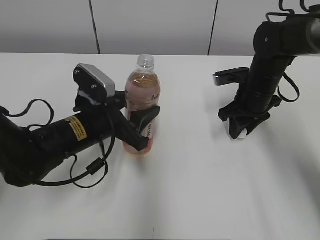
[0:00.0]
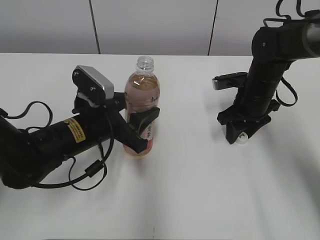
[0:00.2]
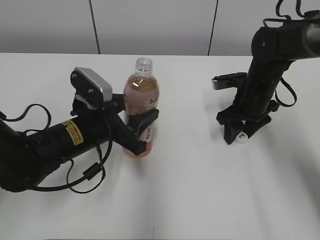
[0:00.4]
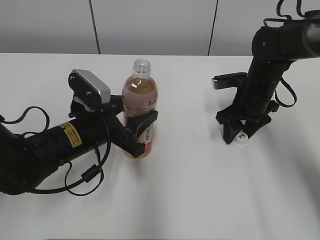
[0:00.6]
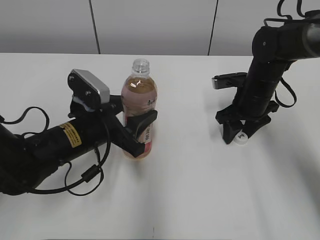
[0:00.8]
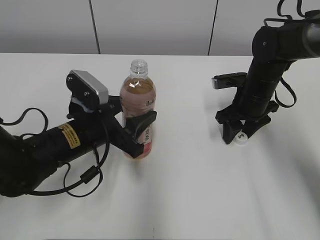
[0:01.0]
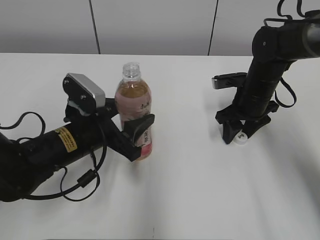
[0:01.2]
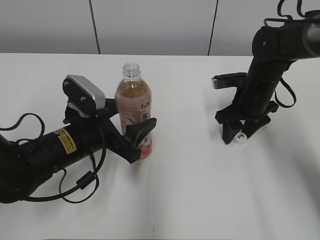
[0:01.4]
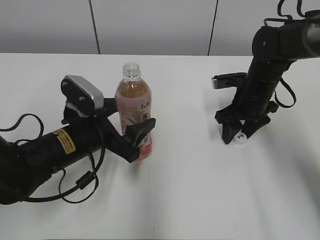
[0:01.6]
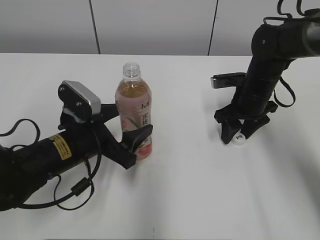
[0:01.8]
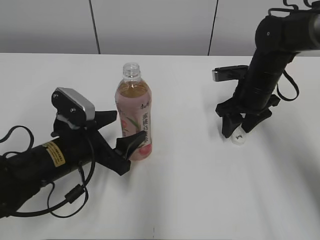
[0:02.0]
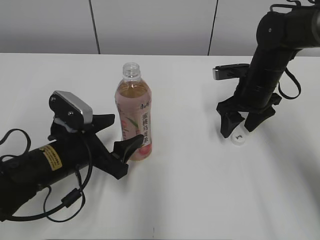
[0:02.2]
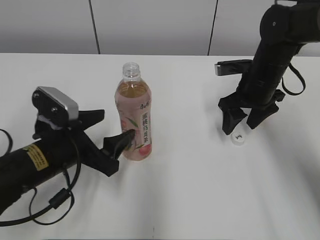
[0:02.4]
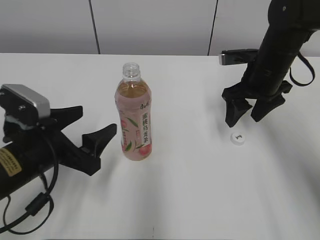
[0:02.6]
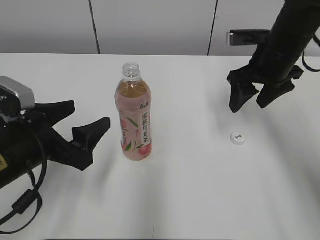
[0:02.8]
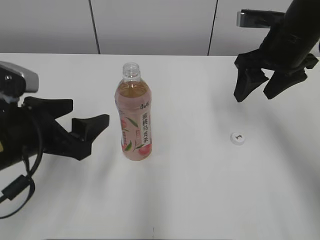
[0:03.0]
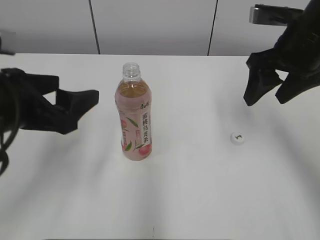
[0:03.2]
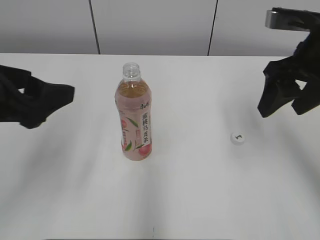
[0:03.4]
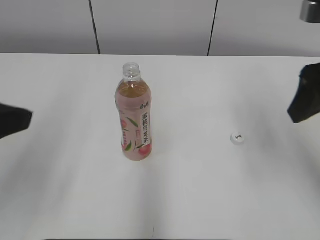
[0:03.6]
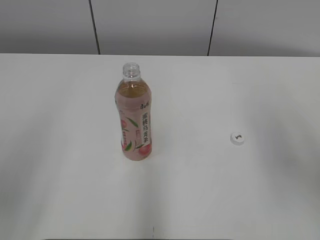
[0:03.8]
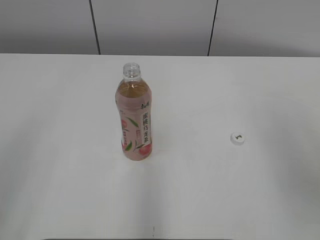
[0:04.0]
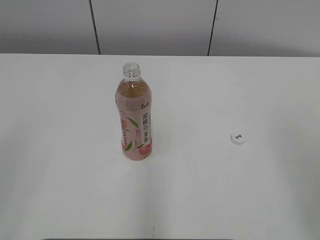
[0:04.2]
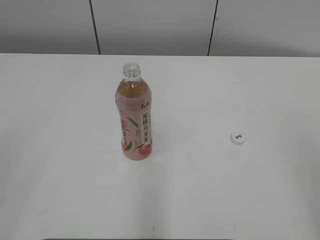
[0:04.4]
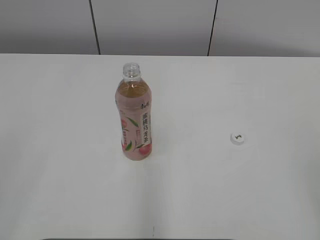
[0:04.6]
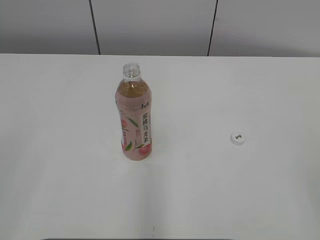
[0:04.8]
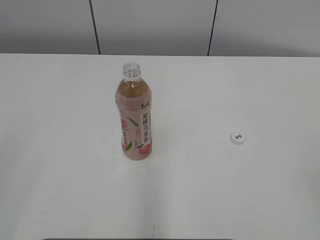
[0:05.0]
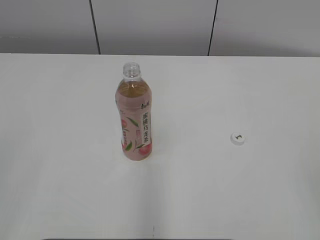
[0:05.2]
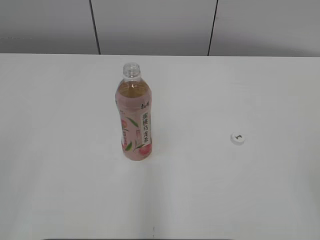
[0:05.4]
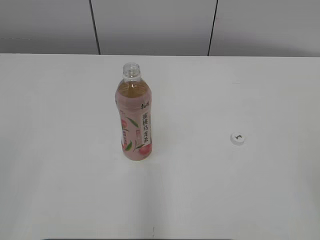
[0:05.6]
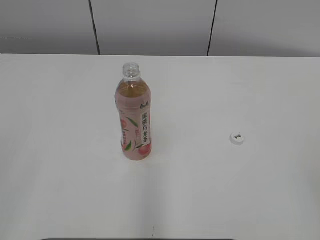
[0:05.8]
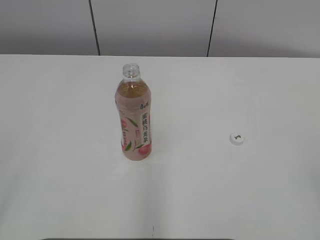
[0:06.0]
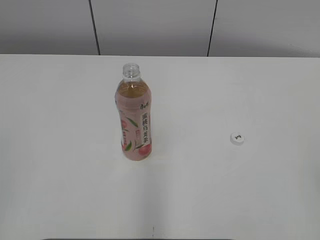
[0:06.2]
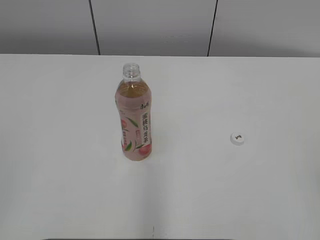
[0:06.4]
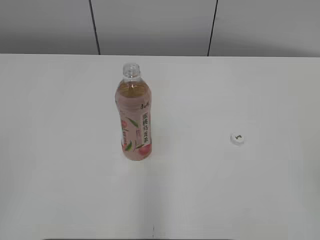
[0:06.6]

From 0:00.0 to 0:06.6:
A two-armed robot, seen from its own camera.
Step, from 0:00.4 to 0:01.6: Place the Peach Oolong Tea with the left hand.
From 0:00.0 to 0:01.6: The left gripper opens. Meanwhile the right gripper opens up.
From 0:01.6 to 0:03.2: The right gripper shifts approximately 15 cm upward, while the left gripper goes roughly 15 cm upward, backward and to the left.
From 0:03.2 to 0:05.0: The left gripper is displaced backward, to the left and upward by about 25 cm, and closes. The right gripper is displaced backward by roughly 35 cm, and closes.

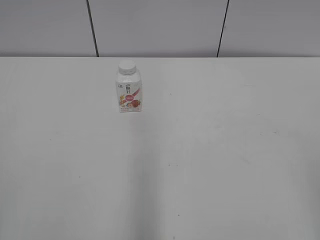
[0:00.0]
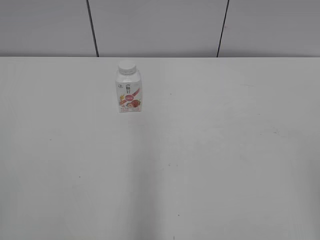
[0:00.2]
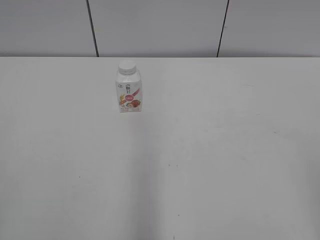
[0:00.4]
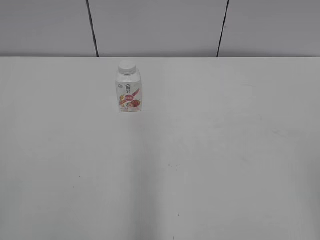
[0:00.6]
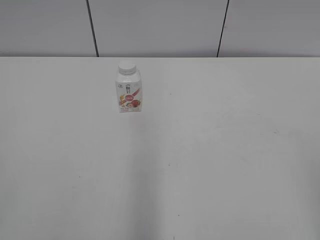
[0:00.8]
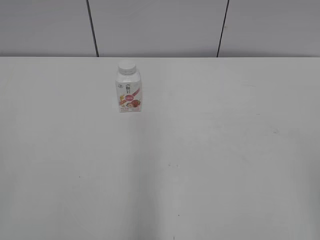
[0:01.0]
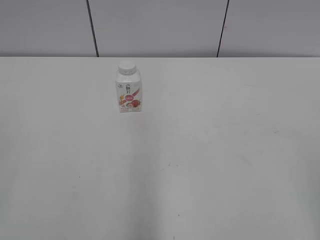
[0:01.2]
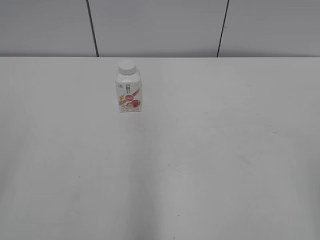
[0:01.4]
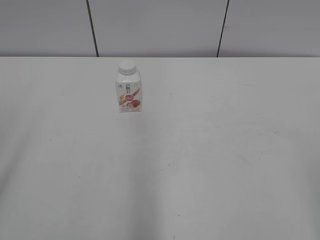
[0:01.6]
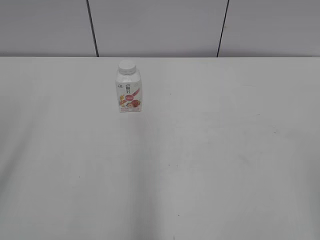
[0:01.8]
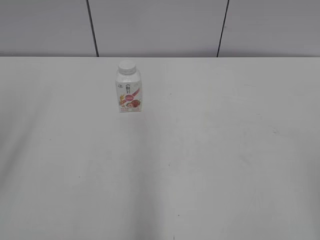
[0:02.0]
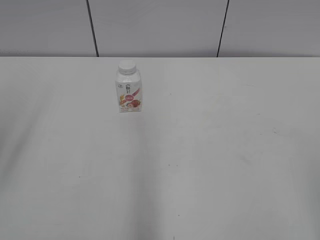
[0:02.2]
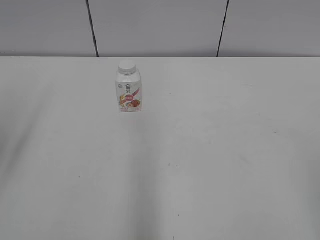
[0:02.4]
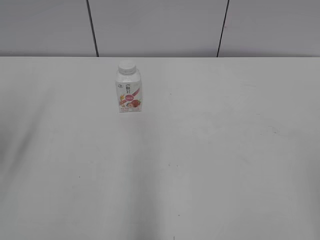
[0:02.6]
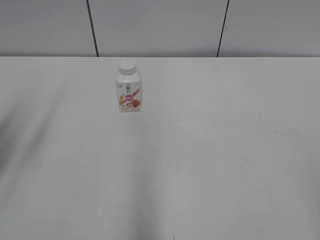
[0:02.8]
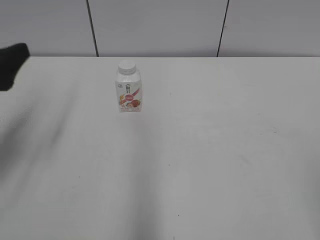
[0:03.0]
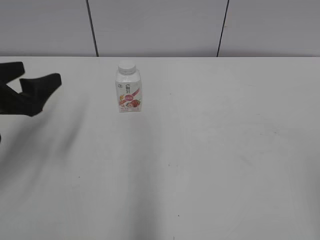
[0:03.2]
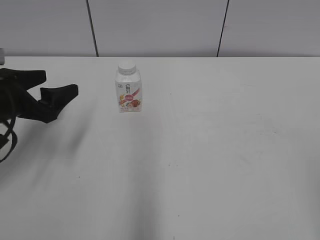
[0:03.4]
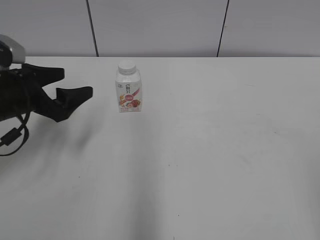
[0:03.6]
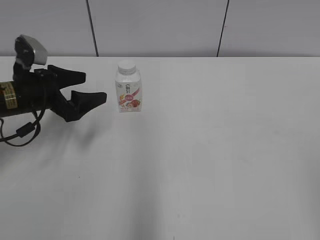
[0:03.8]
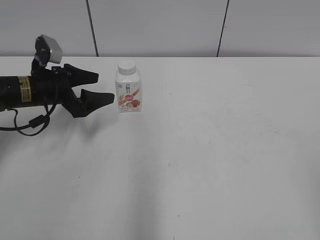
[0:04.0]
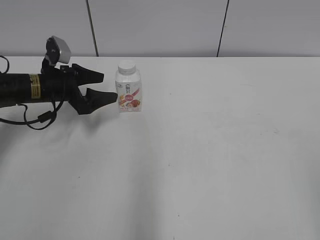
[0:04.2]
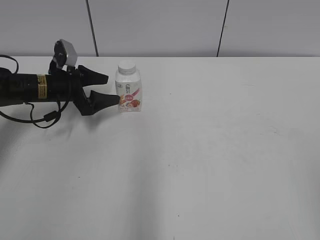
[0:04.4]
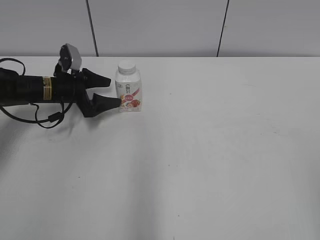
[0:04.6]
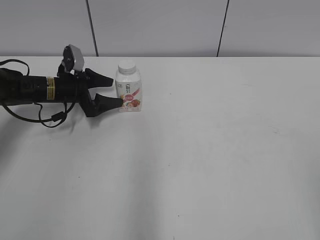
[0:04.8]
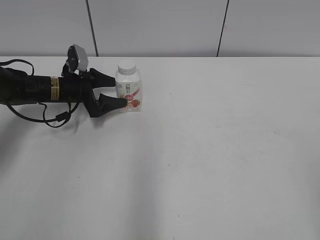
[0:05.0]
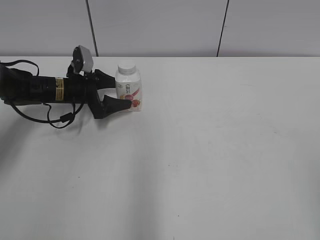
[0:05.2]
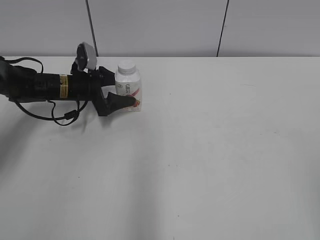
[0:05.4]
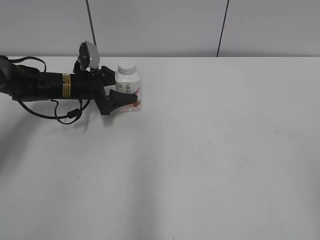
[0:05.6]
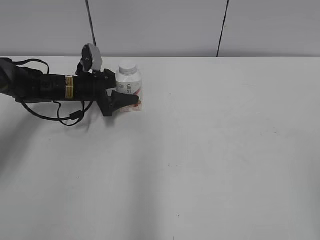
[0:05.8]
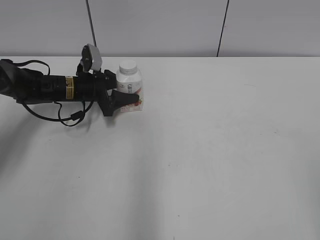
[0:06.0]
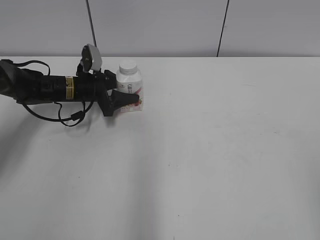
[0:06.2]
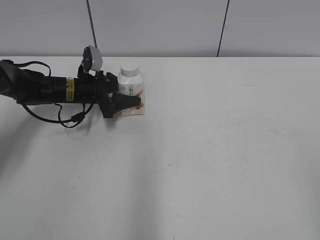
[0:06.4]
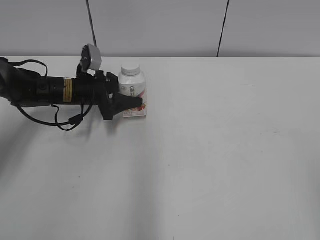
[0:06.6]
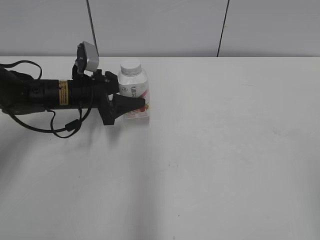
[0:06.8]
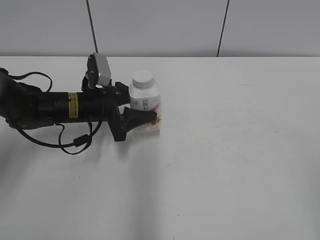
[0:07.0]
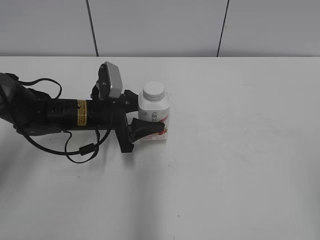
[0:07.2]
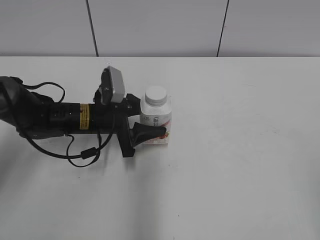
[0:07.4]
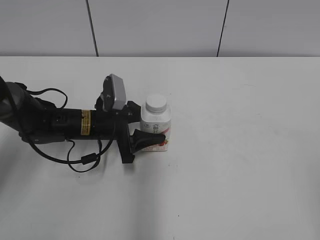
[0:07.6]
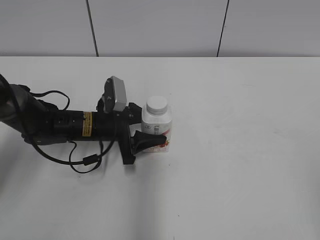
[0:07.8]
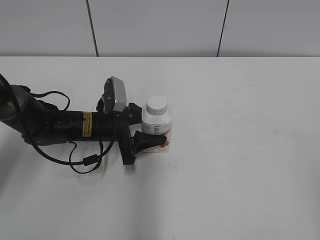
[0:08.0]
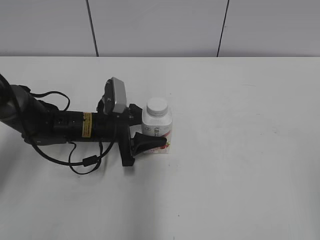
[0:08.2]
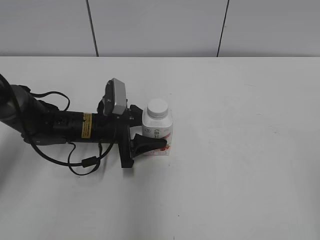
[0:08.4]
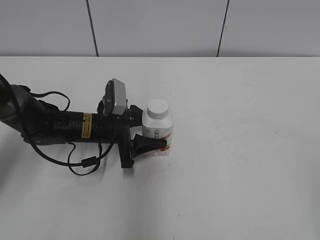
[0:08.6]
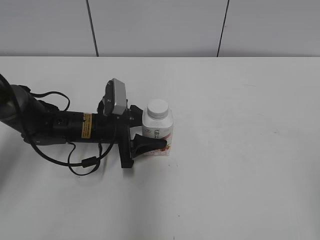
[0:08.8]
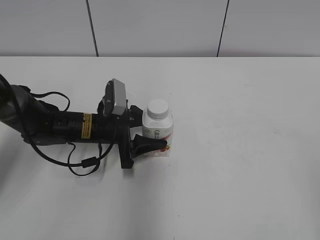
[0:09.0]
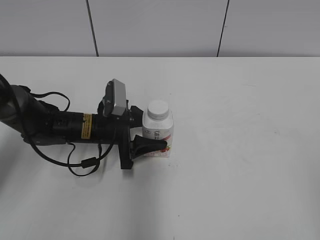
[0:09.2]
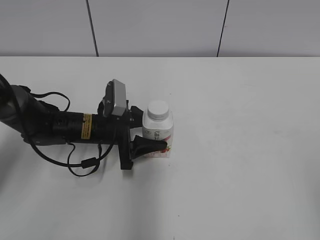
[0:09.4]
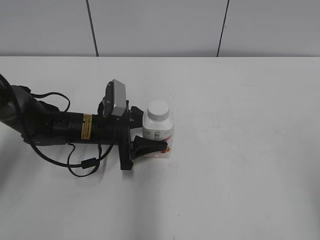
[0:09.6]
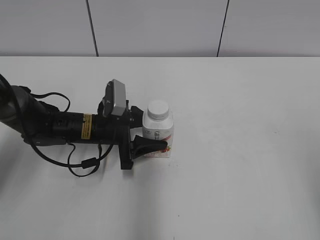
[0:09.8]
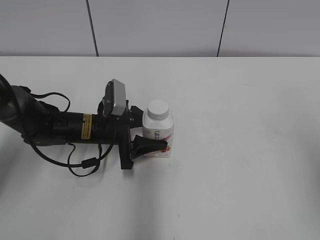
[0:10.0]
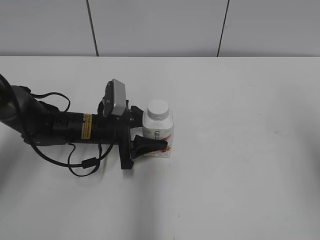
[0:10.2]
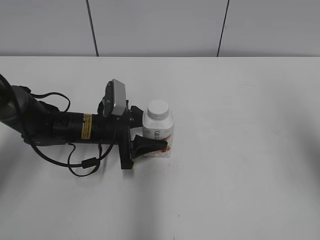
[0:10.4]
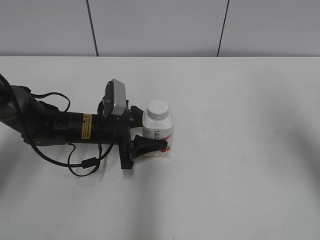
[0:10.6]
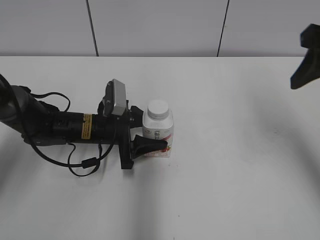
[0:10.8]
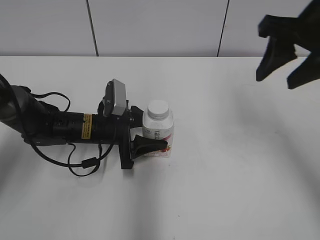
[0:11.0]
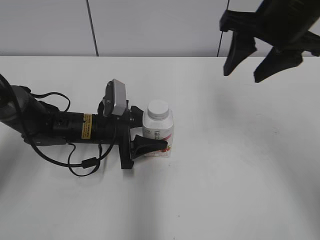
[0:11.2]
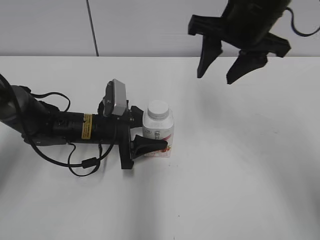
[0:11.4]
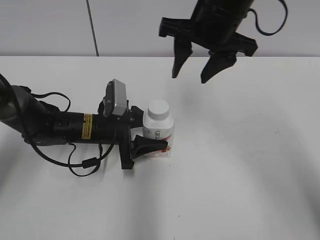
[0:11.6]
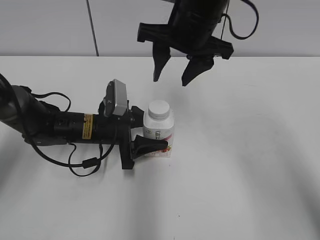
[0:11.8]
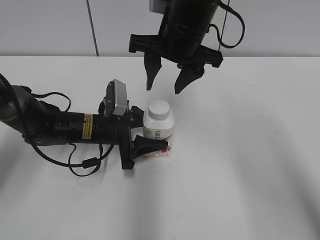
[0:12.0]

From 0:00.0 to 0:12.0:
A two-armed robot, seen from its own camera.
Step, from 0:00.0 to 0:06.0: Grab the Yili Changqing with the left hand.
Step, from 0:06.2 to 0:10.4: Move the Yili Changqing from left to right.
From 0:01.6 to 0:03.0: The left gripper is displaced forward and downward by about 20 cm.
From 0:03.0 to 0:04.4: The left gripper is displaced forward and downward by roughly 25 cm.
From 0:04.4 to 0:06.0: The left gripper ends up about 5 cm from where it was, and closes.
From 0:06.0 to 0:07.6: The left gripper goes approximately 15 cm backward and to the right.
From 0:07.6 to 0:09.0: Neither gripper changes place.
From 0:09.0 to 0:10.4: The right gripper shifts some 20 cm forward.
From 0:10.4 to 0:12.0: The right gripper heads to the left and forward, covering roughly 30 cm.

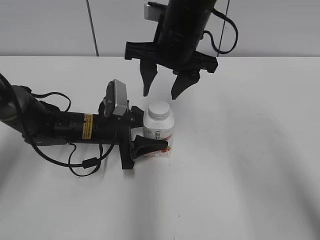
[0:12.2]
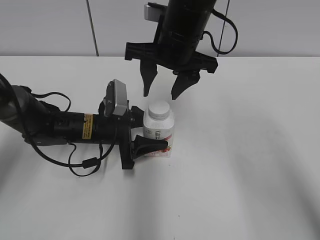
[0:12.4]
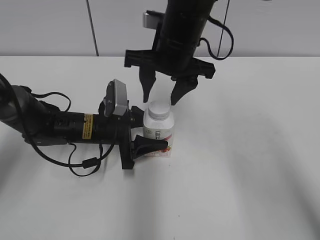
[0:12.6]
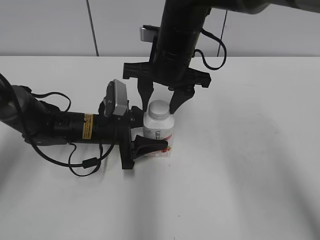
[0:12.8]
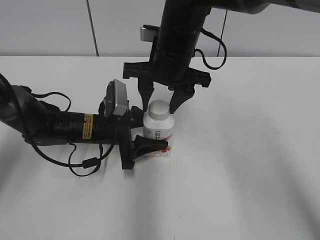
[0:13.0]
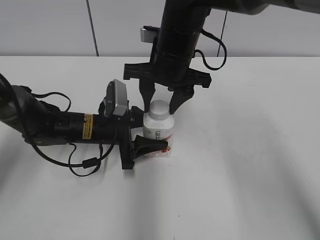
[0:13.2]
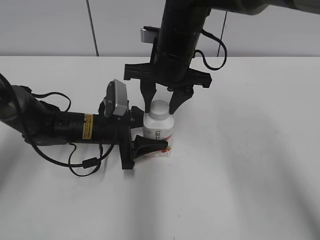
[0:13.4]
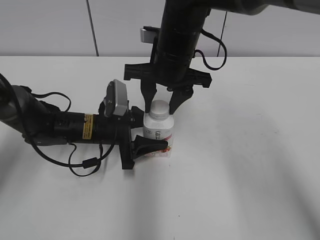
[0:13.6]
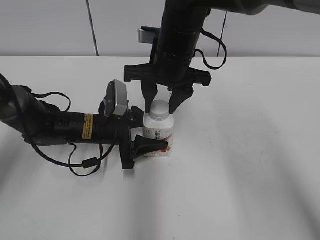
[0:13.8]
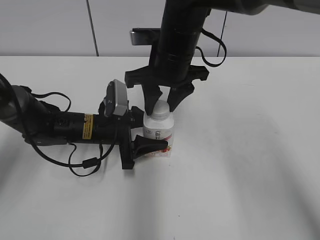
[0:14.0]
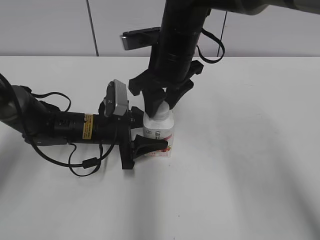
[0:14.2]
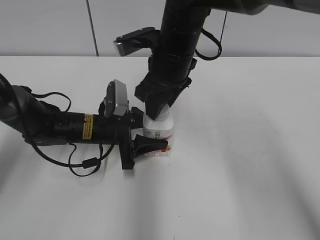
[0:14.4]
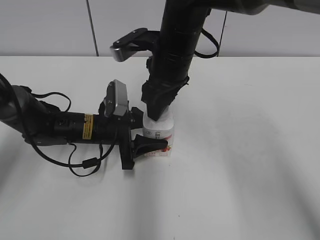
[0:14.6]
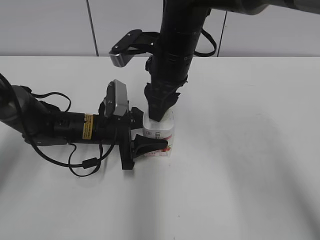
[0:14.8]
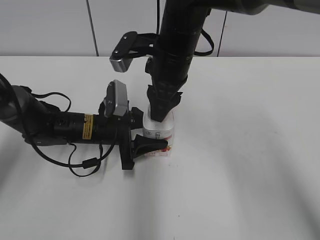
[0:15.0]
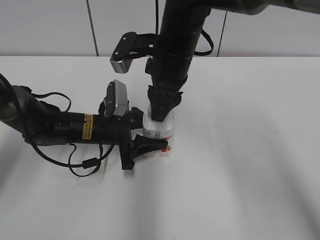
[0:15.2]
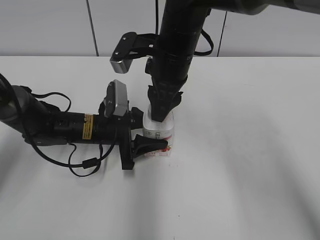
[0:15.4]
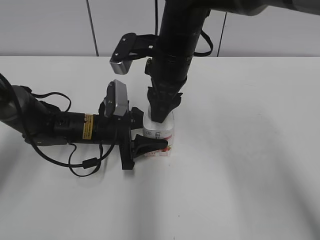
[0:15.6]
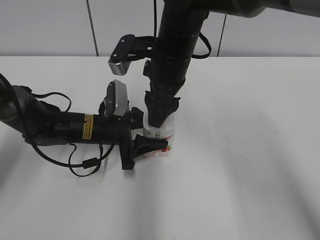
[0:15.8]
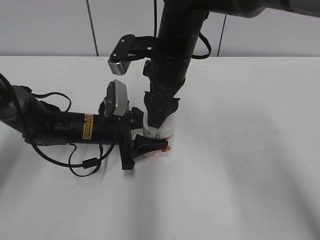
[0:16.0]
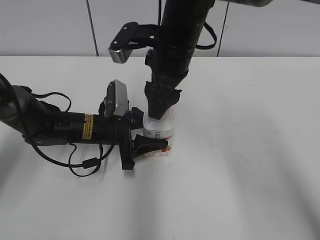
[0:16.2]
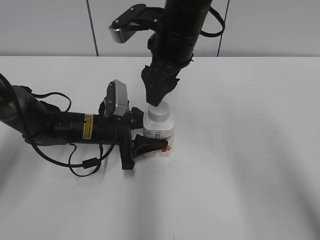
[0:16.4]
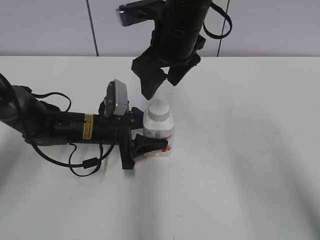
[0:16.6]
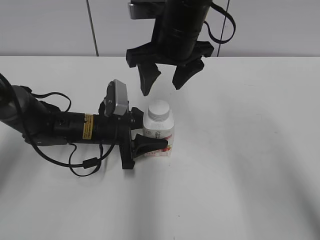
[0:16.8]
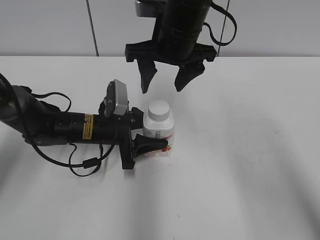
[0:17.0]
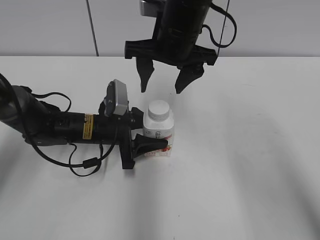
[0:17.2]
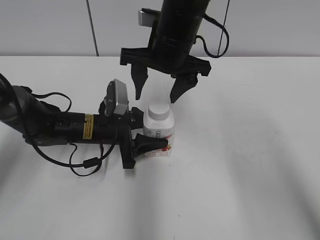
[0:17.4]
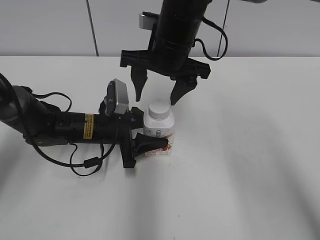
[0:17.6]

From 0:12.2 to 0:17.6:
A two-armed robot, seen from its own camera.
From 0:12.2 to 0:13.6: The right gripper closes.
From 0:15.0 to 0:16.2: The right gripper opens.
